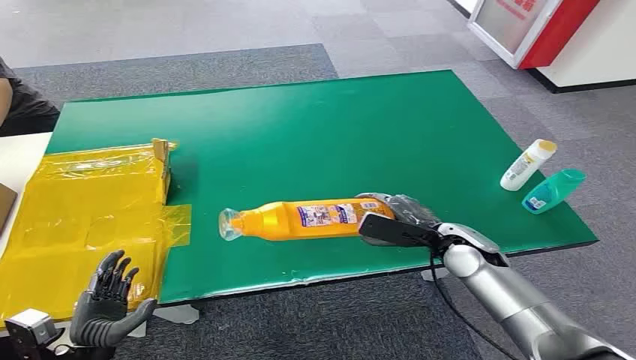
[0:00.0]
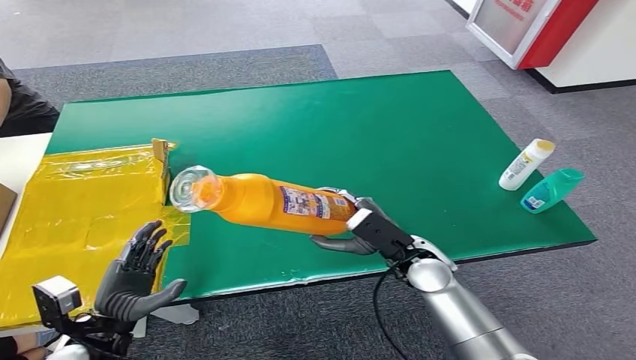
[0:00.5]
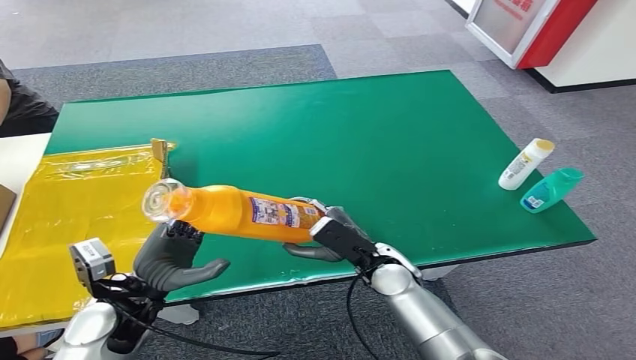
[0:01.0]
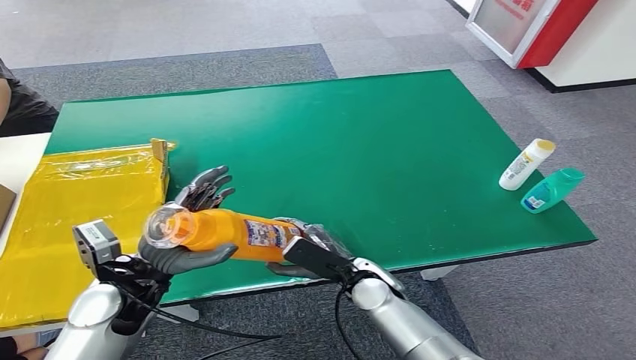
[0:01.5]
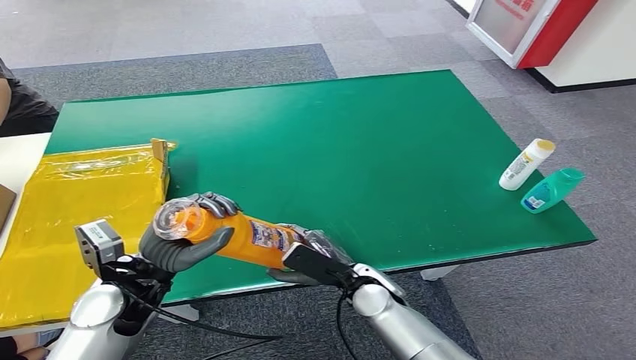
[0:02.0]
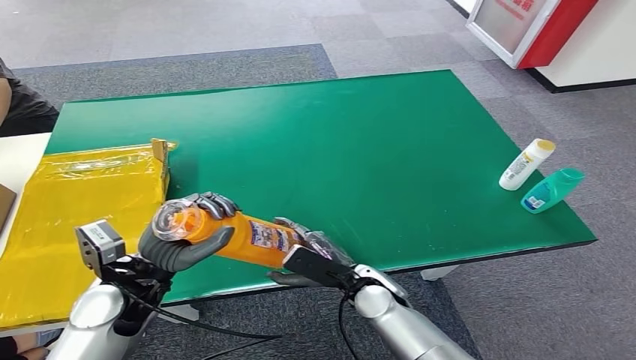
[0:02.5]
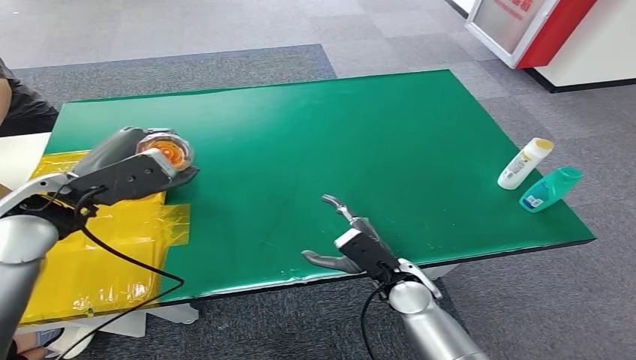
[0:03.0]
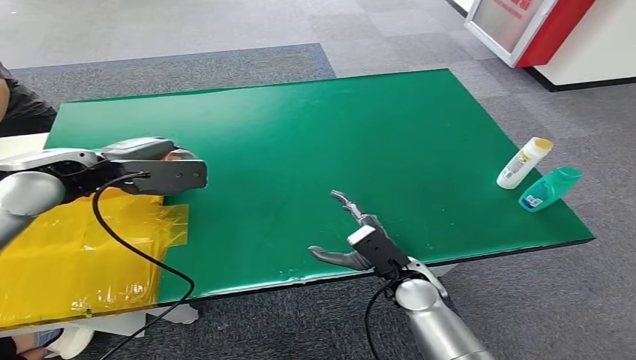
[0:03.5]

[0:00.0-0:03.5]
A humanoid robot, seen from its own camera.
Step, 0:01.0 to 0:03.0: Turn the bottle to the front side.
